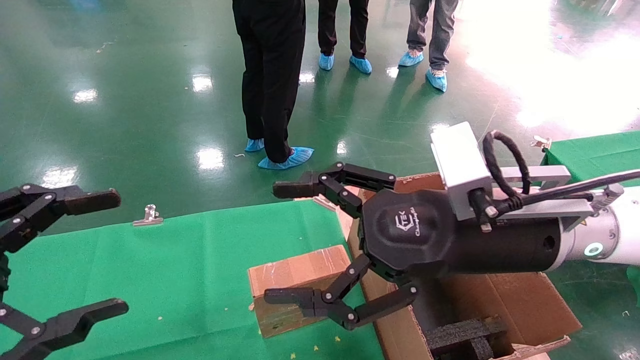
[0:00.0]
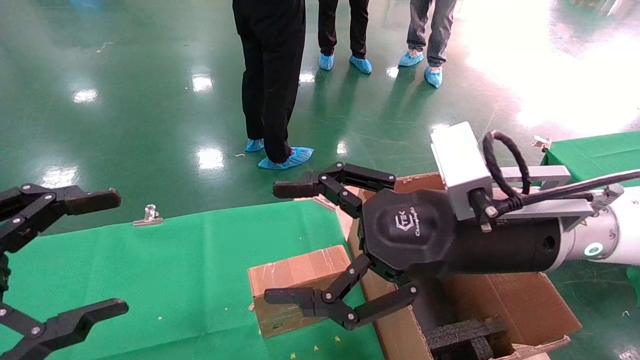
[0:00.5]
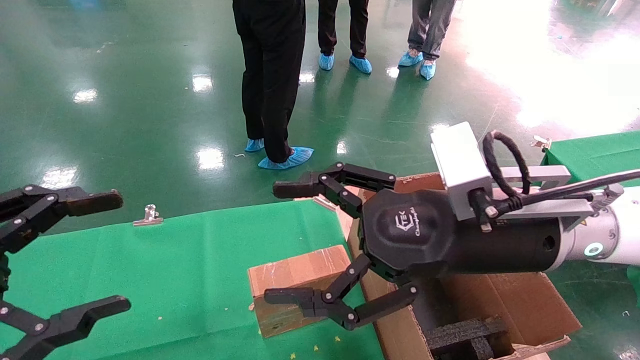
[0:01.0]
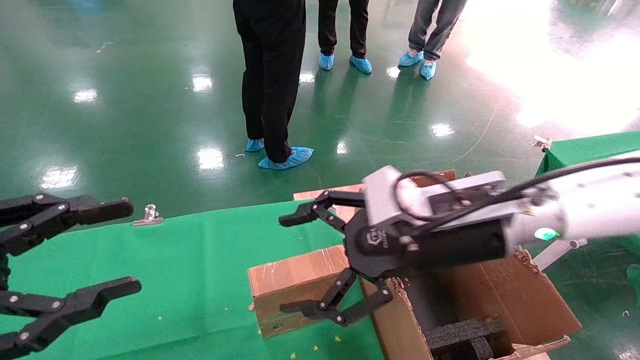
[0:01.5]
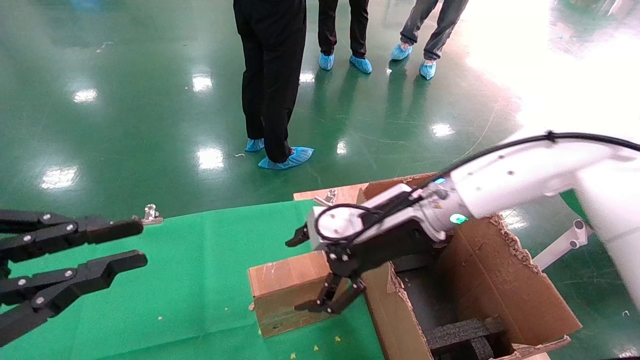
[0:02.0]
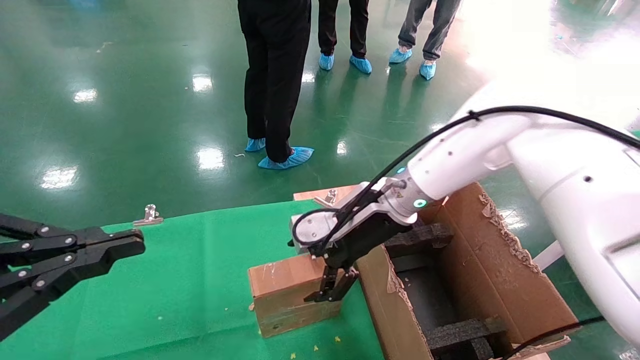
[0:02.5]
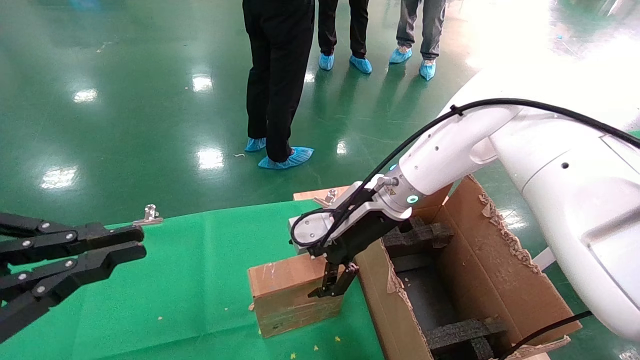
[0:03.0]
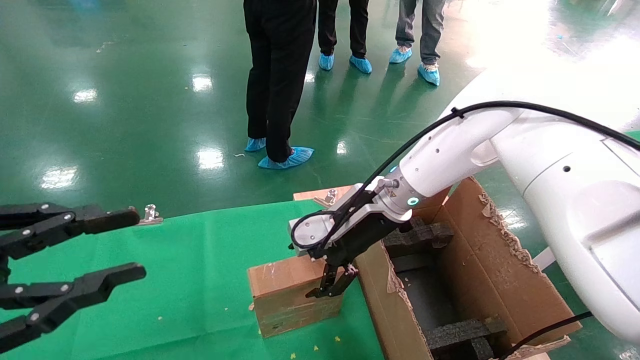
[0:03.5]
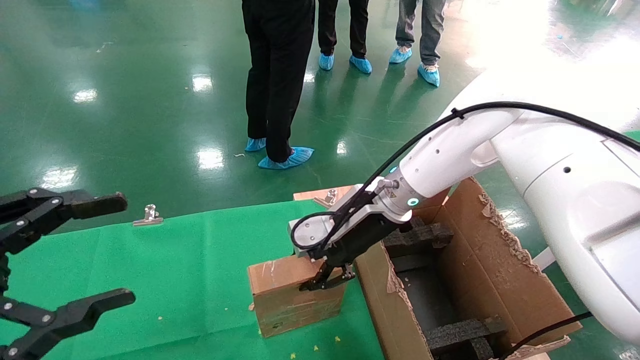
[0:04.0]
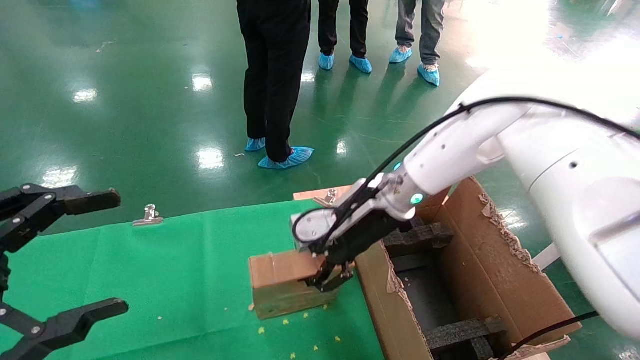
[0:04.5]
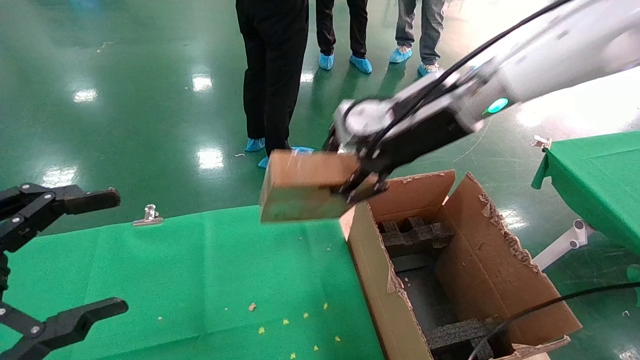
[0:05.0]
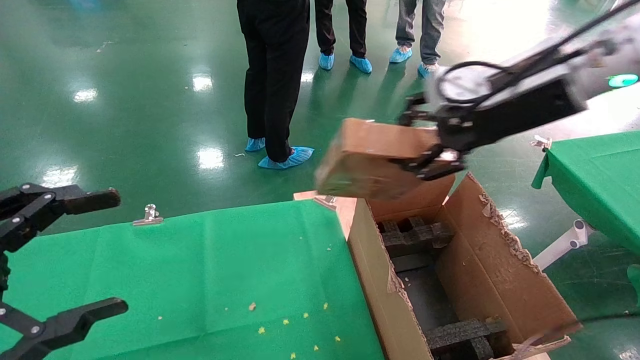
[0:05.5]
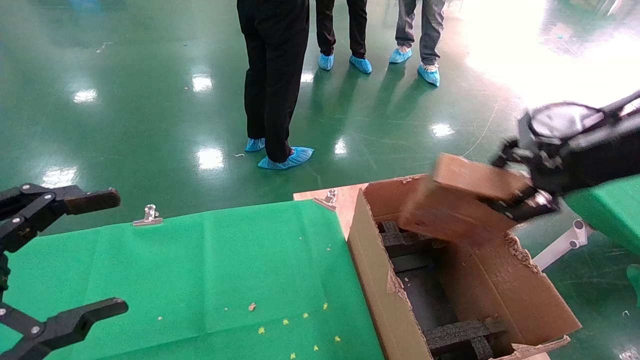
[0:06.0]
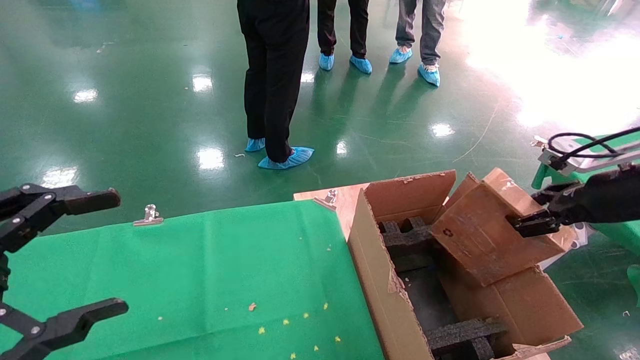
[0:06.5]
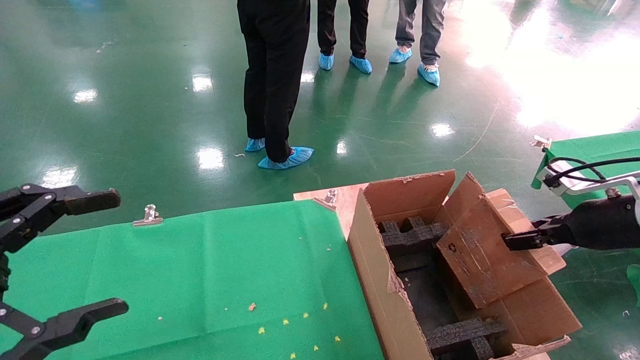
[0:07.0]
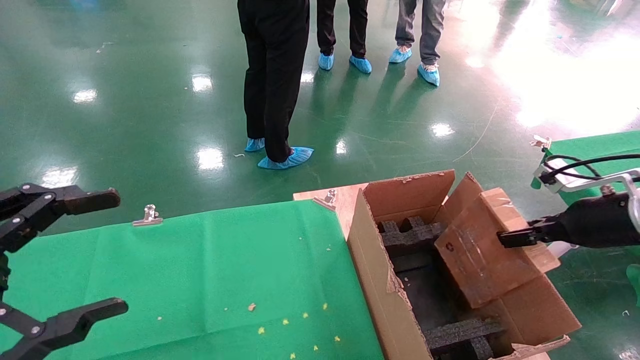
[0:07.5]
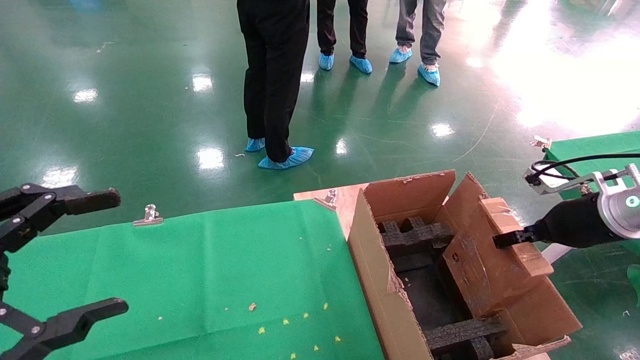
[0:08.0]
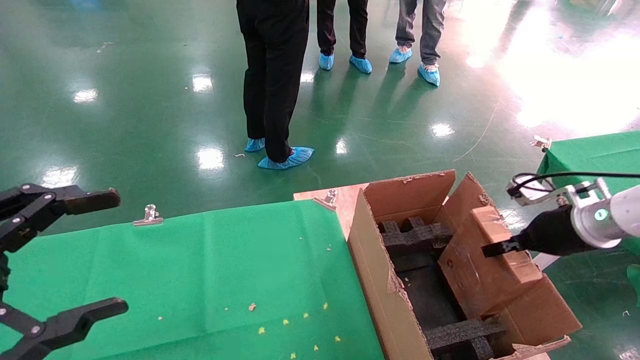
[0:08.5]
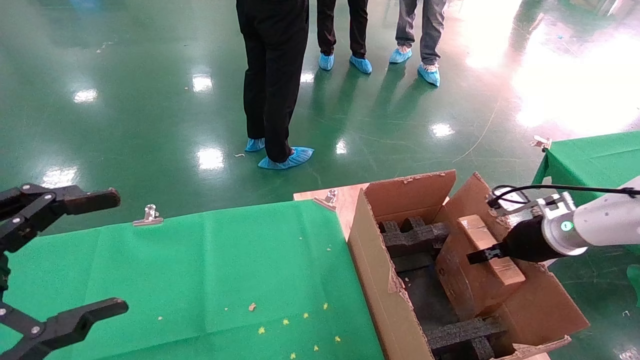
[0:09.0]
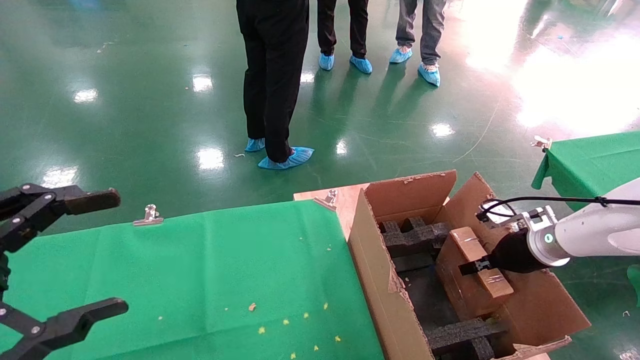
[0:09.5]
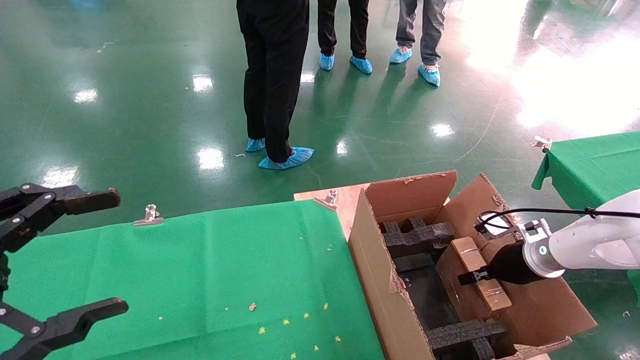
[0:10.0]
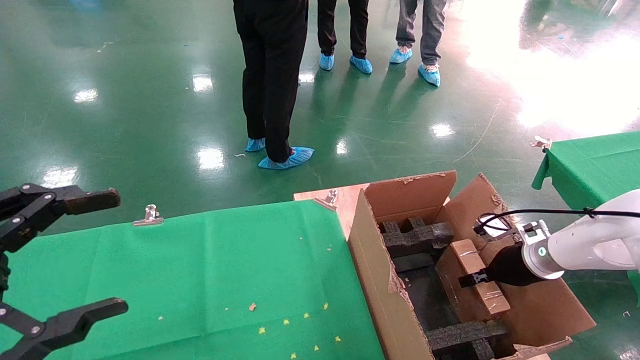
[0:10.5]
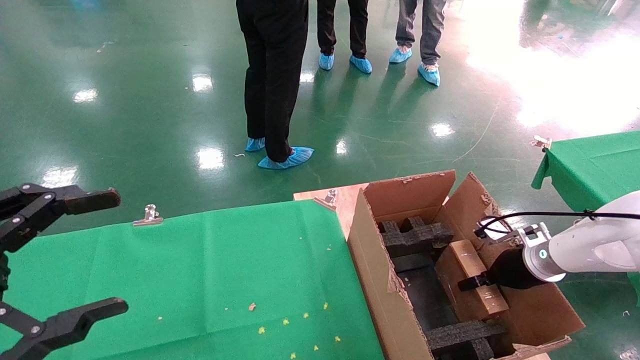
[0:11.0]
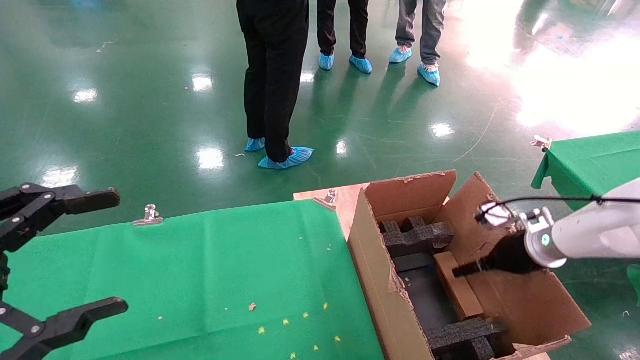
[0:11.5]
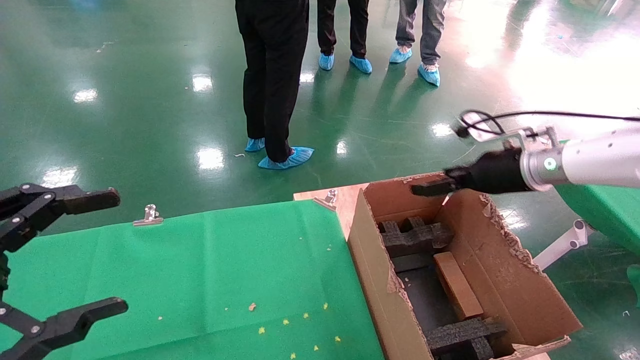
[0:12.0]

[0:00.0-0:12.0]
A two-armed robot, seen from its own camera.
Task of the whole recording: using a robotic arm to pick up a cardboard box and palace it the carton.
Step, 0:01.5 to 0:04.0: Pick up the mouse and the power cord paper box.
Step, 0:04.5 to 0:11.5: Place the mouse and the power cord paper box into the container.
0:00.0 to 0:02.0: The left gripper closes its fingers. Meanwhile the right gripper heads forward, covering roughly 15 cm.
0:02.0 to 0:04.0: The right gripper ends up some 5 cm from where it was, and closes, while the left gripper opens up.
0:04.0 to 0:06.0: The right gripper moves to the right, backward and upward, about 30 cm, and closes up.
0:06.0 to 0:08.0: The right gripper is displaced downward and to the right by some 15 cm.
0:08.0 to 0:10.0: The right gripper shifts about 15 cm downward and forward.
0:10.0 to 0:12.0: The right gripper shifts about 20 cm upward and to the left, and opens up.

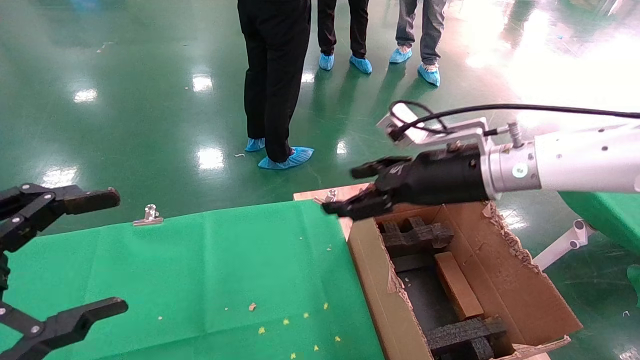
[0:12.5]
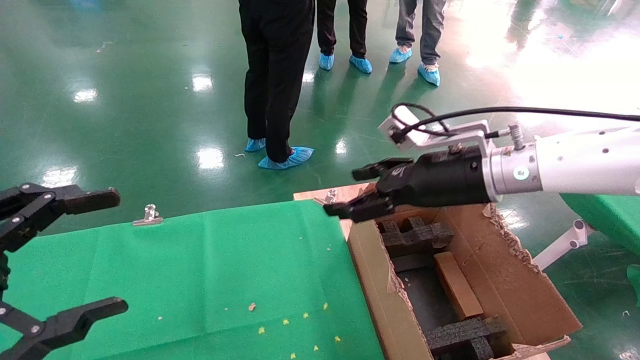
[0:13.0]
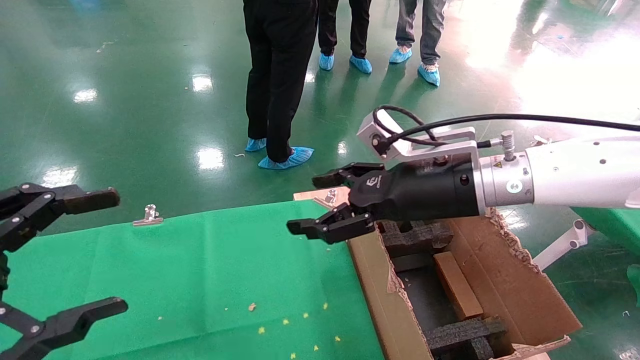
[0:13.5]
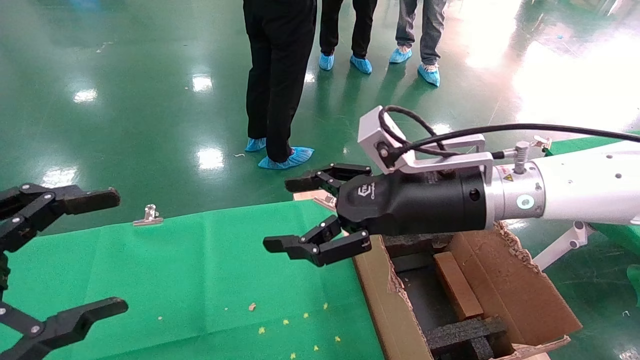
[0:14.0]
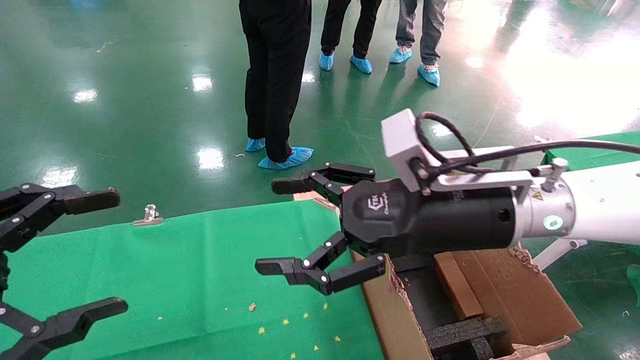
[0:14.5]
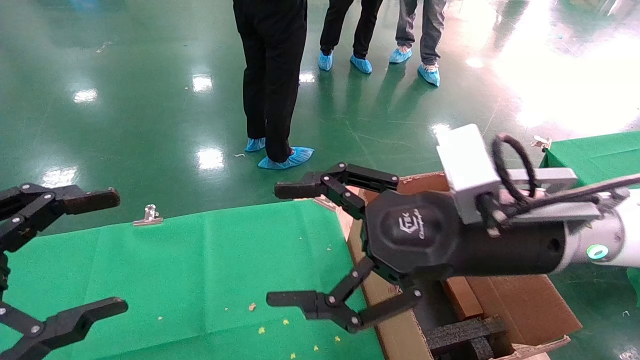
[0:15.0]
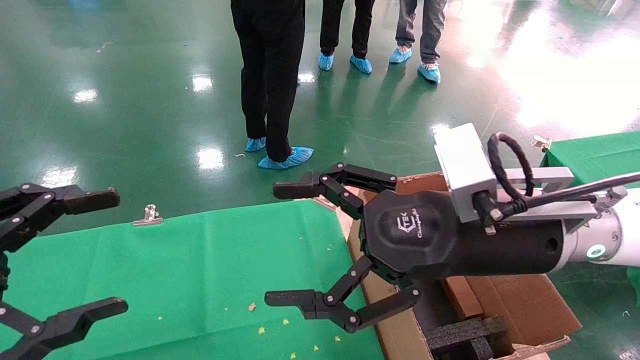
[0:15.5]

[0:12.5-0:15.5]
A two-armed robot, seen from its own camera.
Task of the whole recording: using a robotic arm to pick up a cardboard box and palace it the carton.
0:12.5 to 0:14.0: The right gripper travels to the left and backward by about 10 cm.
0:14.0 to 0:15.5: The right gripper is displaced backward by some 5 cm.
